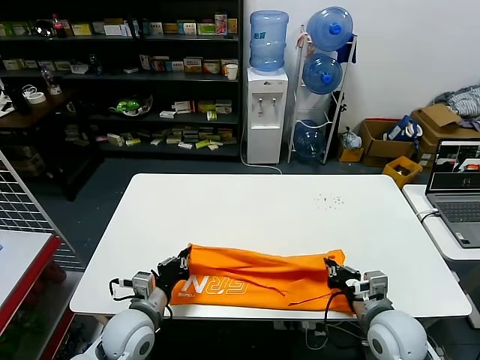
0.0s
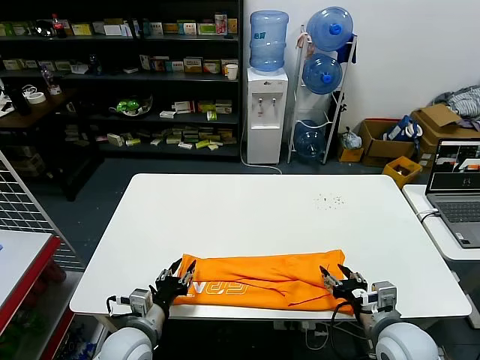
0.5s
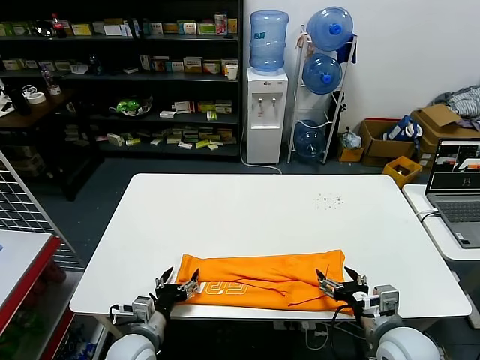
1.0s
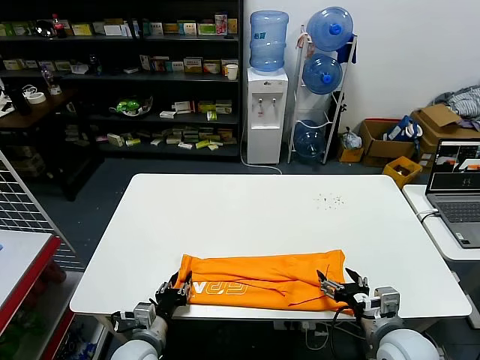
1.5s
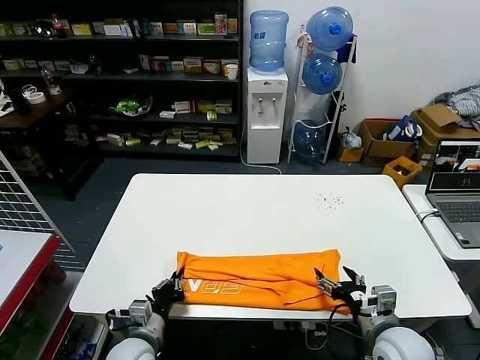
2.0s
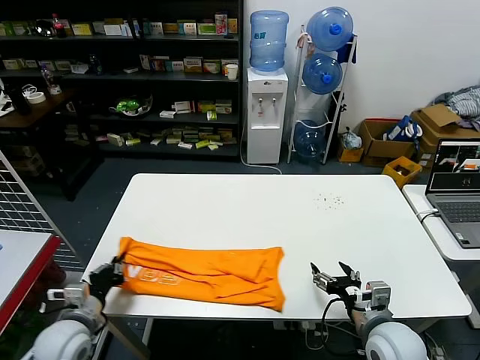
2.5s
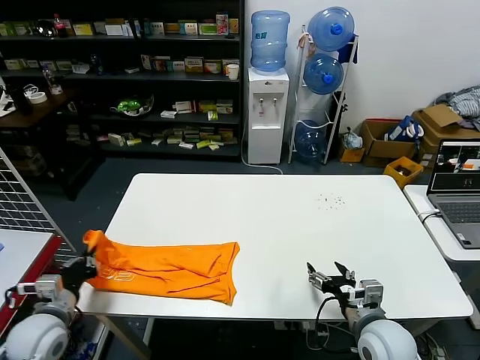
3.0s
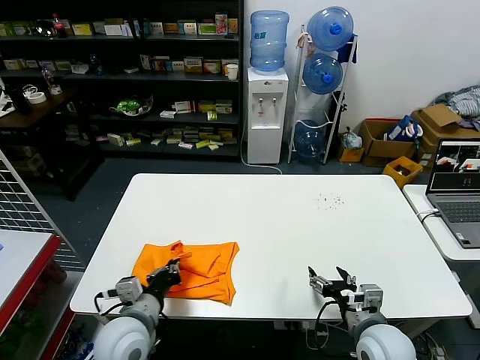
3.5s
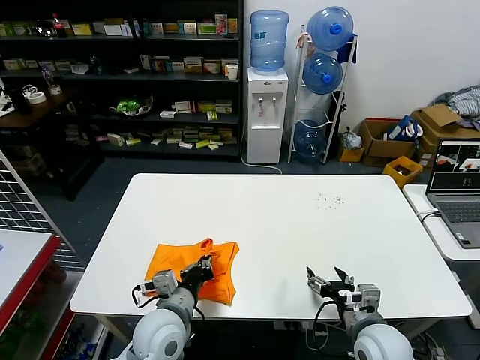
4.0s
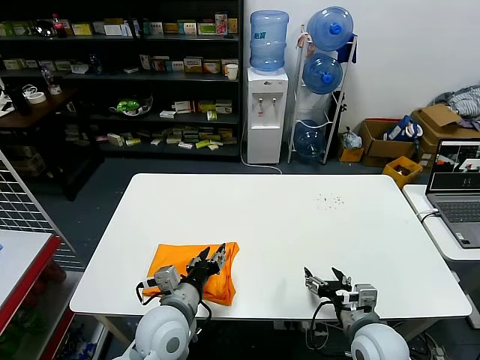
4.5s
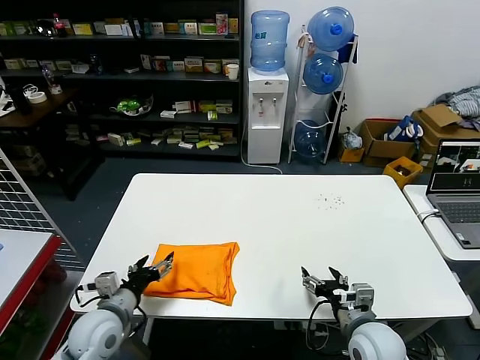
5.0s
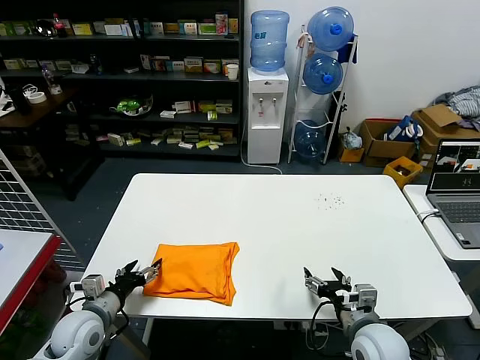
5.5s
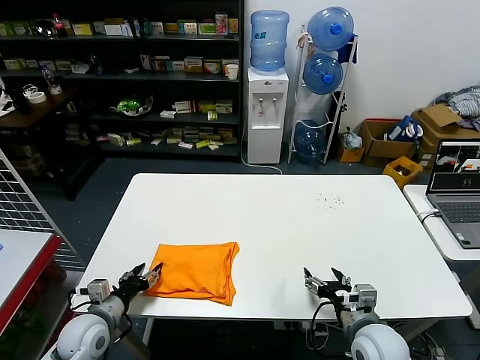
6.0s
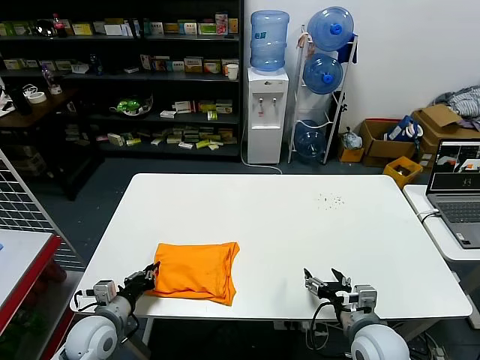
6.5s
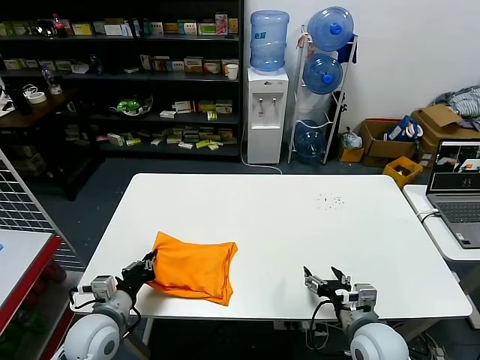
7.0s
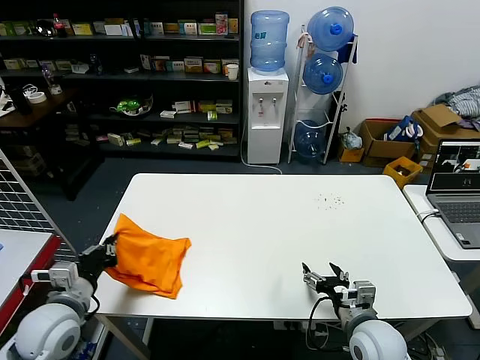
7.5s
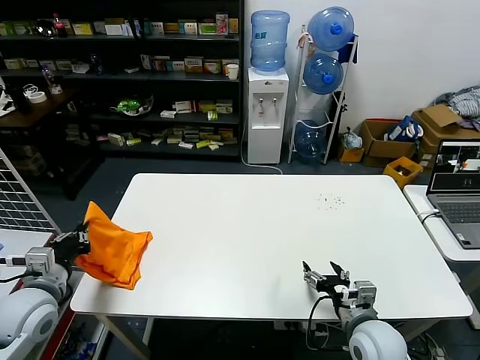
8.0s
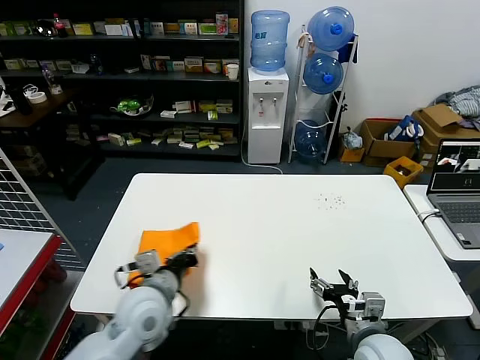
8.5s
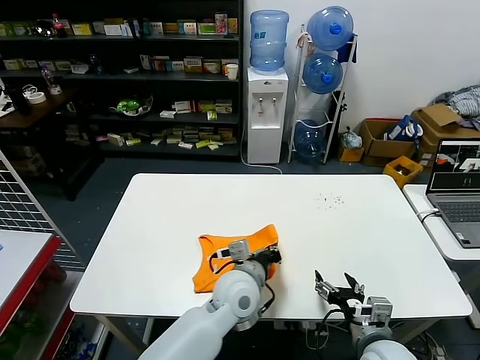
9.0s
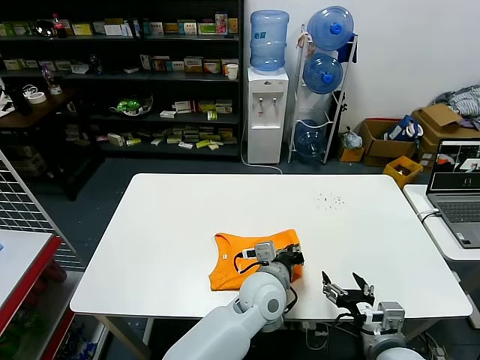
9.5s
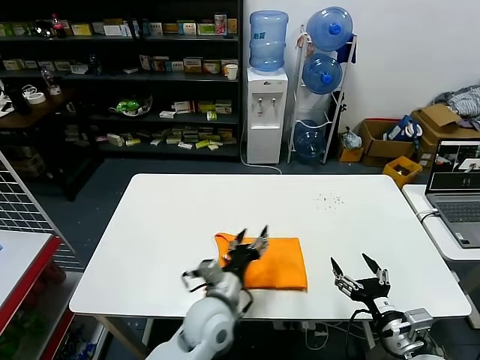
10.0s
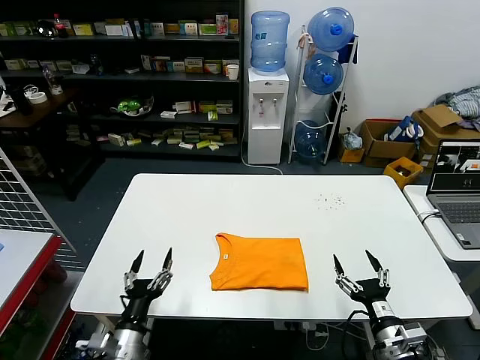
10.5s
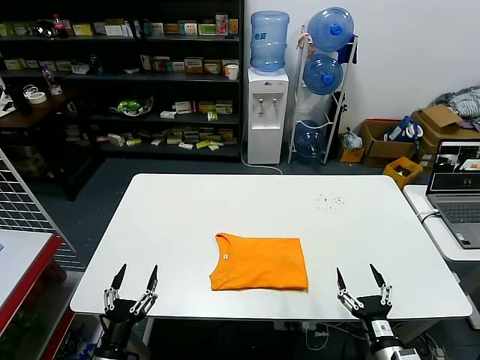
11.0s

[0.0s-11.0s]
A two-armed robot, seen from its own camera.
Task of the whole recording: fold and organize the clothes.
Step, 1.0s to 2.0s: use the left gripper to clamp the left edge of the fabric.
Step, 2.5s to 4.5s: use the left gripper to drag the left edge of the fabric to the left and folds it over the right edge.
Step, 5.0s to 9.5s: Flip the folded clothes over with left gripper.
0.0s to 2.0s: The left gripper shifts approximately 5 cm downward, and opens, then closes again. The right gripper opens.
2.0s to 3.5s: The left gripper heads upward, covering about 10 cm, and goes to the left and returns, roughly 20 cm each way.
3.5s to 5.5s: The left gripper goes some 10 cm to the left and downward, and opens up.
5.5s to 7.5s: The left gripper moves upward, some 10 cm, and closes its fingers.
7.5s to 9.0s: The left gripper travels to the right by approximately 30 cm.
9.0s to 11.0s: The right gripper moves downward and backward, approximately 10 cm; the left gripper travels to the left, backward and downward by roughly 35 cm, and opens up.
